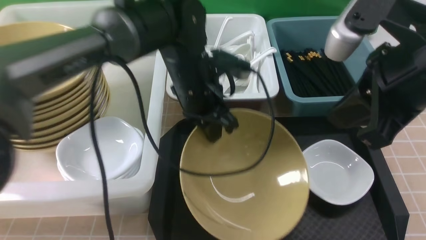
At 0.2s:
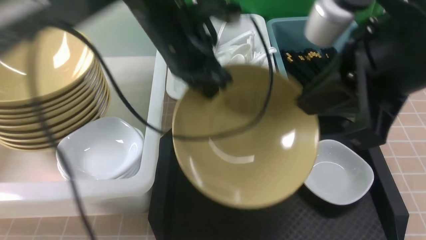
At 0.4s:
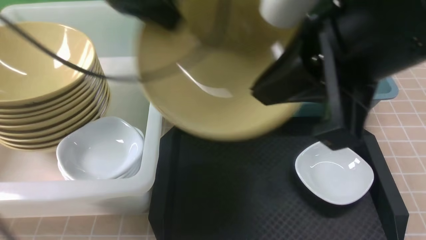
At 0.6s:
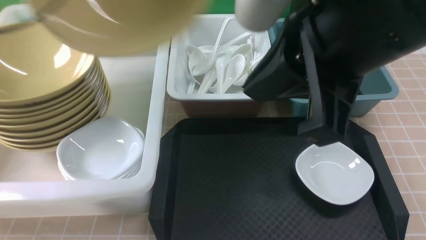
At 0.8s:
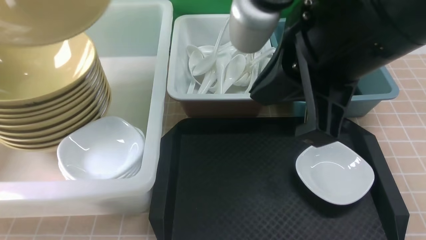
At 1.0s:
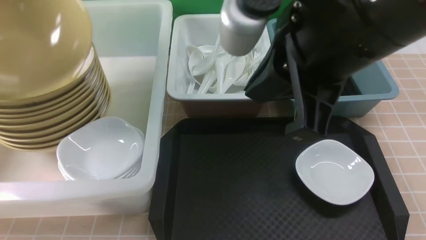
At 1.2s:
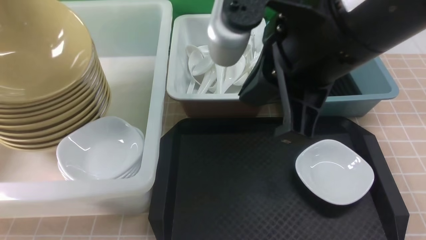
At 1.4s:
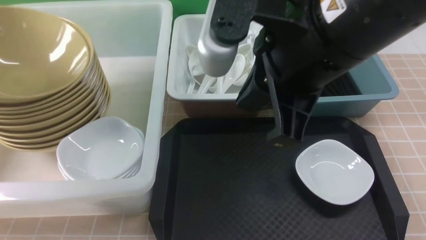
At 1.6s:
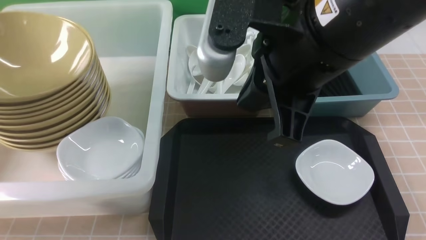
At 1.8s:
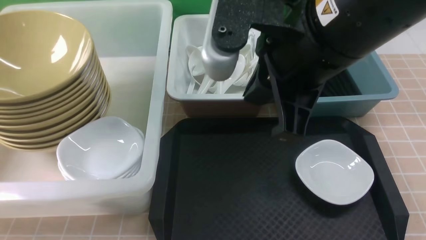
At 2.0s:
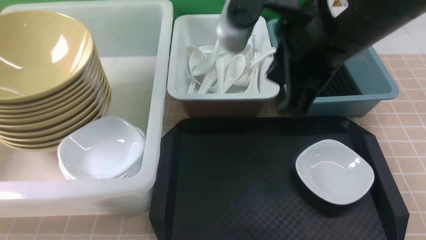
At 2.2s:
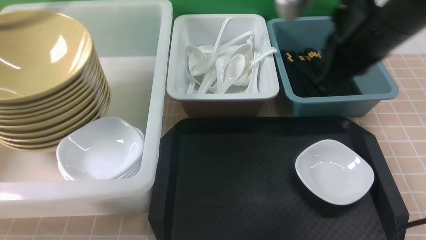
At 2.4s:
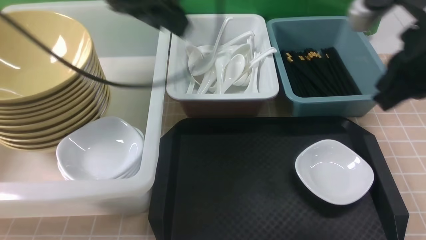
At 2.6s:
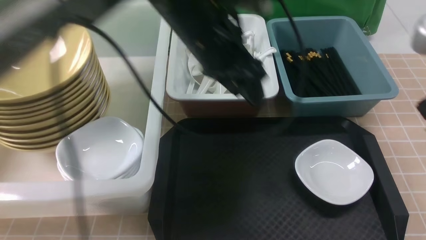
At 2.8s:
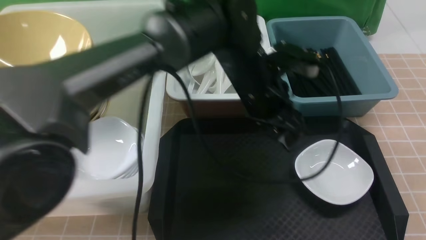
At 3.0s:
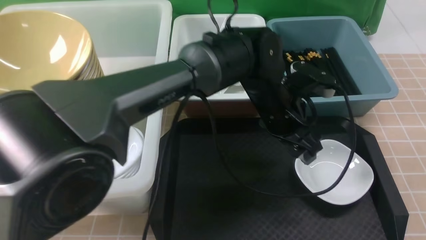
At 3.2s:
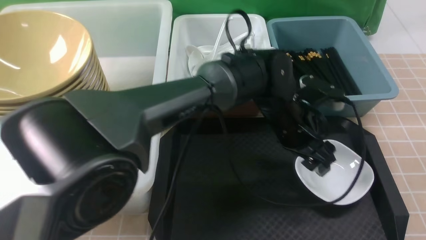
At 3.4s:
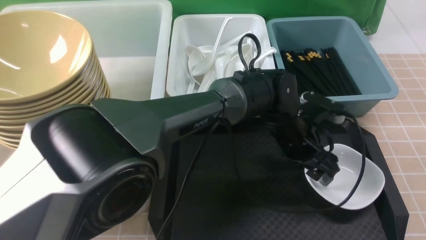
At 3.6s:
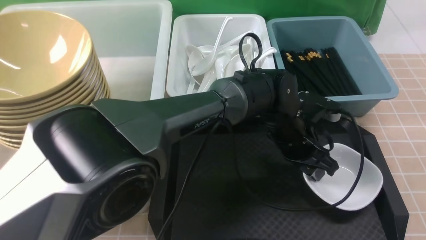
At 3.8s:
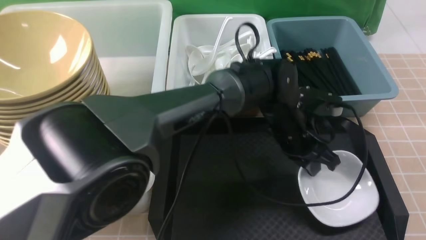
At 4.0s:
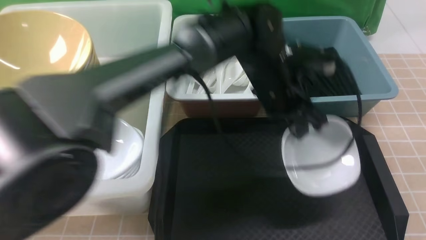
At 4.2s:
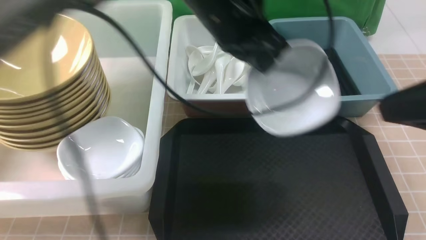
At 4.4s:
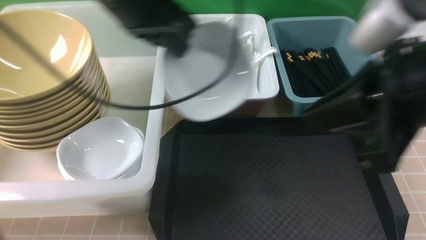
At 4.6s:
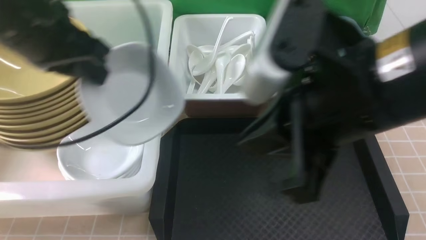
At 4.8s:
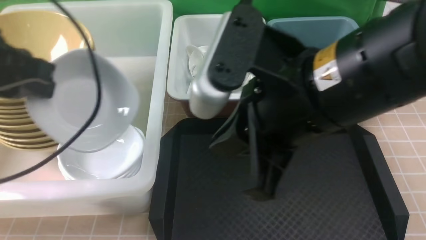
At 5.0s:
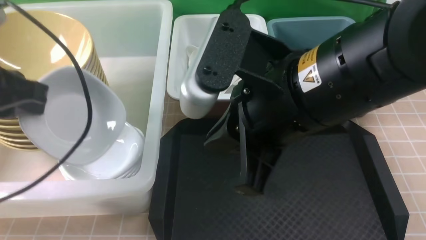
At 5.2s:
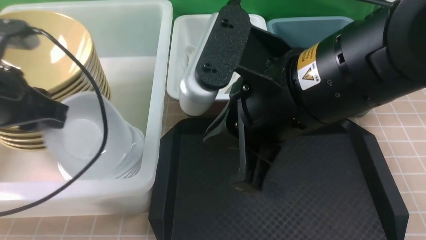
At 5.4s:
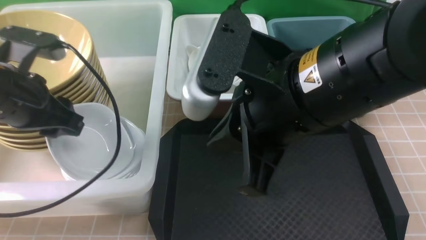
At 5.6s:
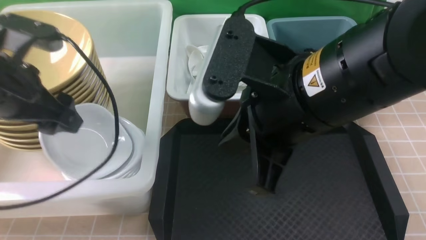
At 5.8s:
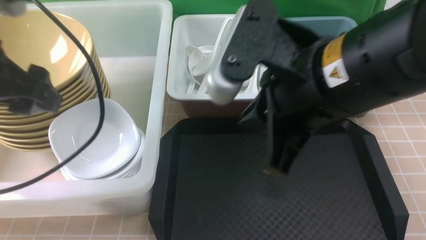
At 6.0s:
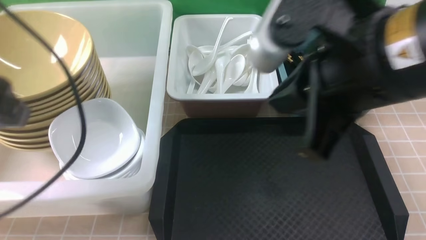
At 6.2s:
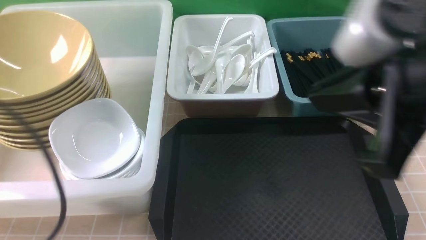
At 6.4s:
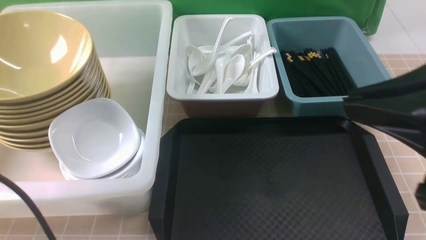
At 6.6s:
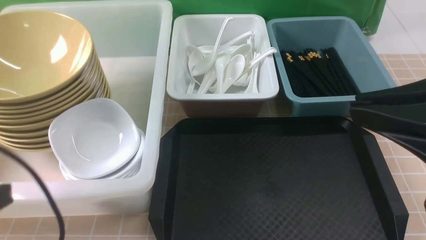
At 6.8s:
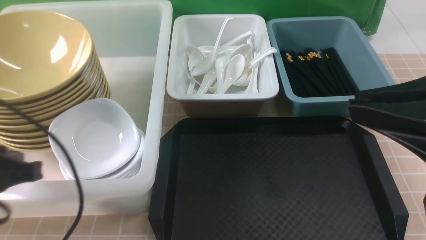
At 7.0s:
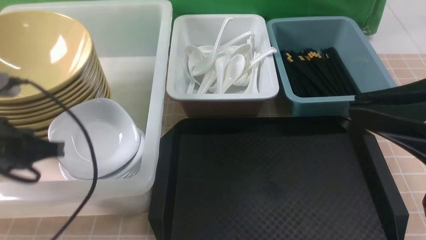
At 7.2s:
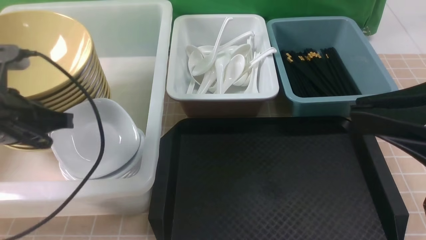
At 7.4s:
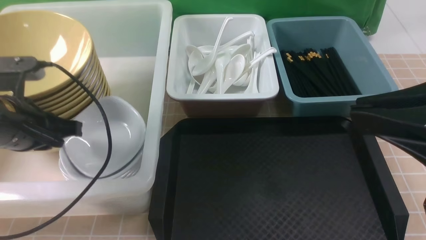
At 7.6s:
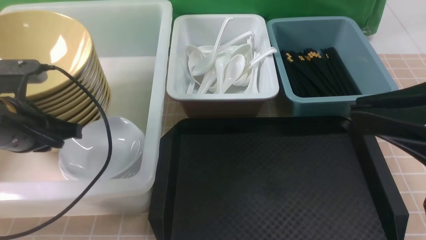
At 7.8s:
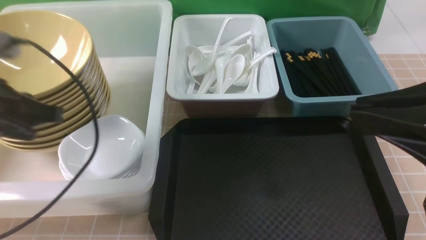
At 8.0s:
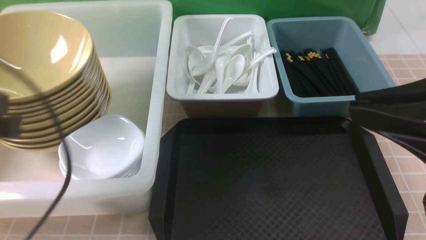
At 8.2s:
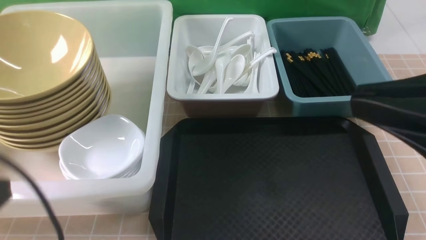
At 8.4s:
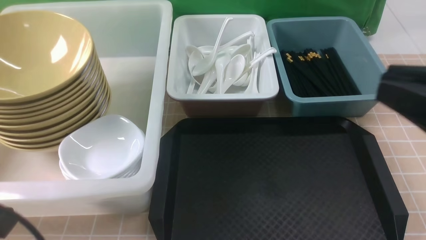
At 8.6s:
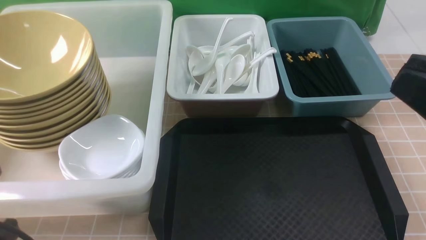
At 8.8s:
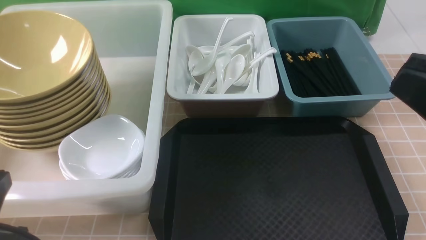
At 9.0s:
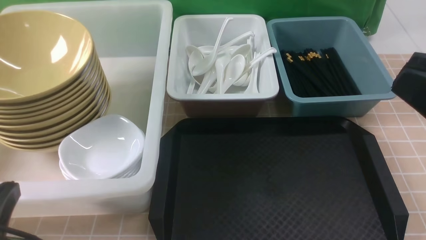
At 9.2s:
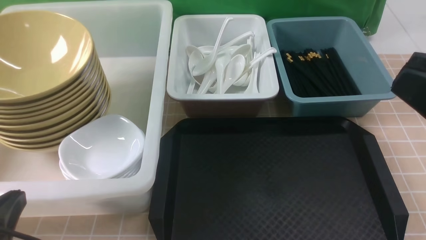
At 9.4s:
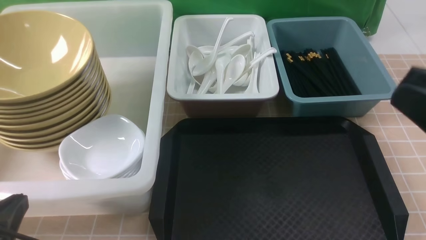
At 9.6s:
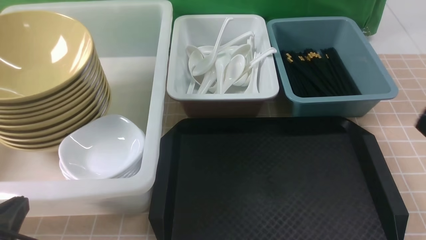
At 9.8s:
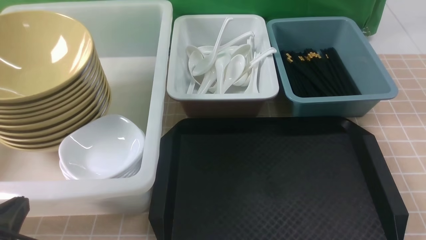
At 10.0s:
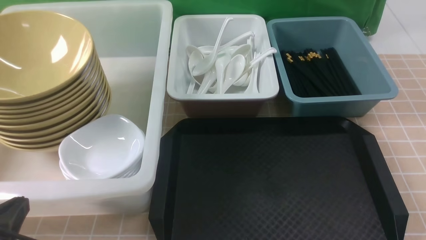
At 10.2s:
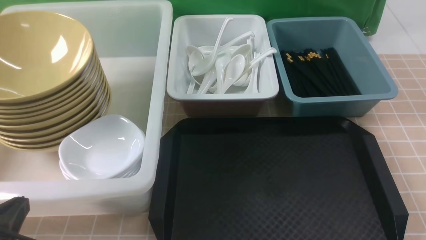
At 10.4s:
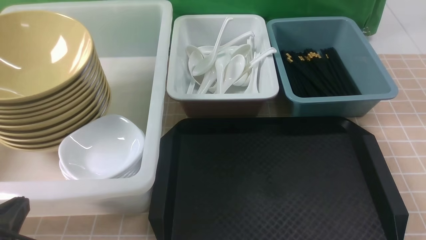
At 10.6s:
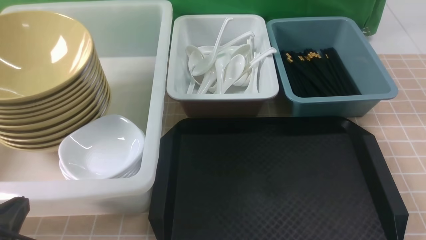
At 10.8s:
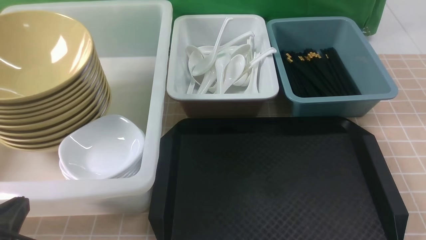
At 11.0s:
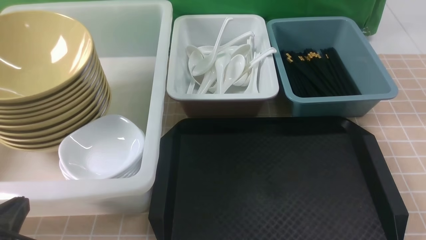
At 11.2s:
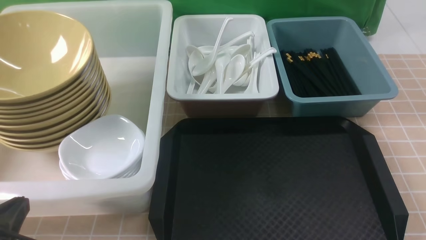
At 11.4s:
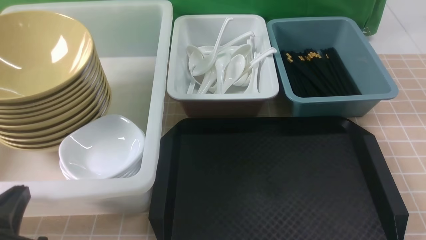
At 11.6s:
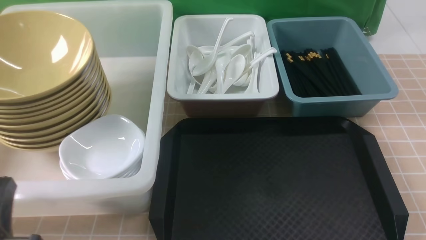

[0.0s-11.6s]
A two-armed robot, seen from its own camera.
Task of the whole recording: on brown table put chopsticks spoon bowls plates into blue grey white boxes.
Step, 0.0s to 1.8s: use the left arm to put the noodle bowl into the large storage box on the left.
Step, 2.0s to 3.8s: use the left arm to grab the plate.
Step, 4.0s to 5.8s: use the left arm to put the plate into the large storage box on the left.
0.0s to 1.4s: The left gripper shifts some 40 cm to the left. Meanwhile the right gripper heads to the left, covering roughly 10 cm.
1.4s to 2.8s: The left gripper shifts approximately 50 cm to the right, and opens. The right gripper goes roughly 20 cm to the right.
2.8s to 4.4s: The right gripper goes approximately 10 cm to the left. The left gripper is displaced to the left and upward by about 20 cm, and closes.
4.4s to 5.8s: The right gripper shifts some 5 cm to the left, while the left gripper moves to the left and backward, approximately 15 cm, and opens.
5.8s to 7.2s: The right gripper travels to the right and backward by some 15 cm. The left gripper heads downward, covering some 10 cm, reaches some 10 cm backward, then returns, and closes.
7.2s to 8.8s: The left gripper is displaced backward by roughly 15 cm.
8.8s to 10.2s: The right gripper shifts approximately 25 cm downward and to the right.
10.2s to 11.6s: The grippers make only small movements.

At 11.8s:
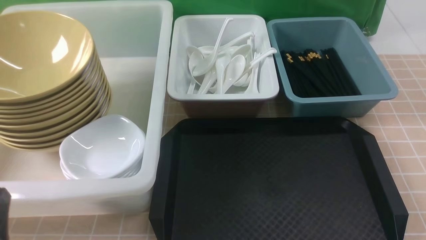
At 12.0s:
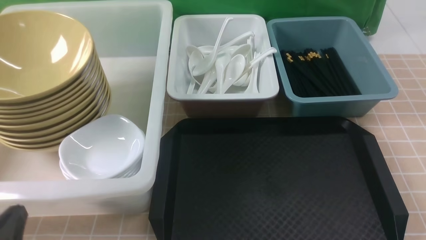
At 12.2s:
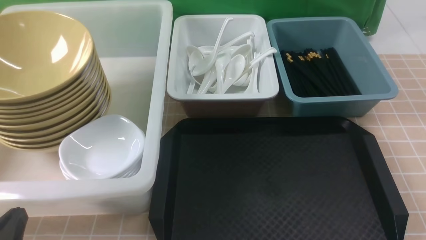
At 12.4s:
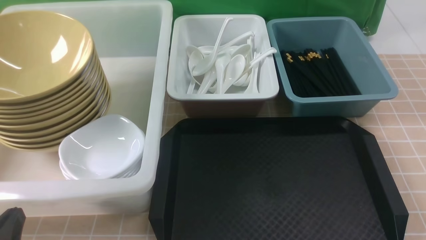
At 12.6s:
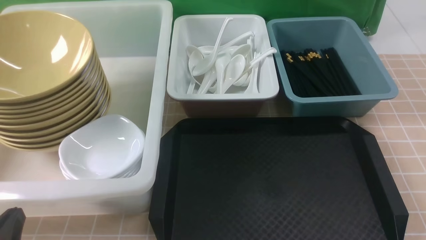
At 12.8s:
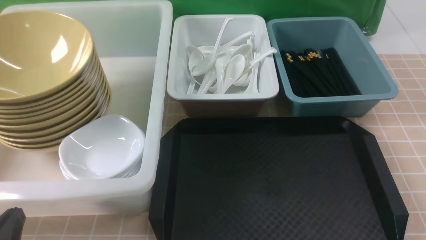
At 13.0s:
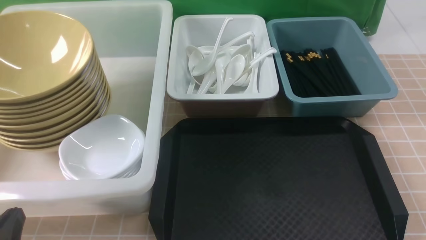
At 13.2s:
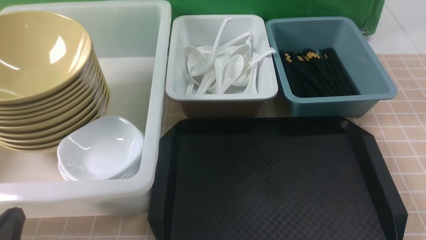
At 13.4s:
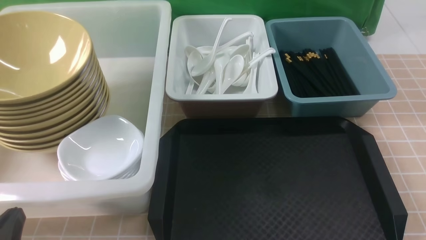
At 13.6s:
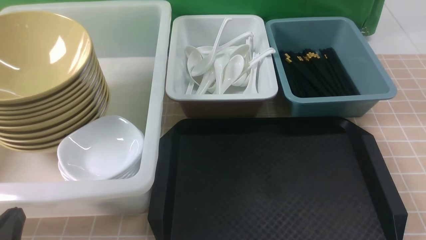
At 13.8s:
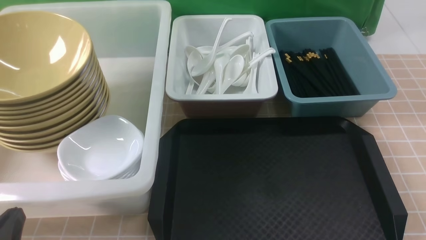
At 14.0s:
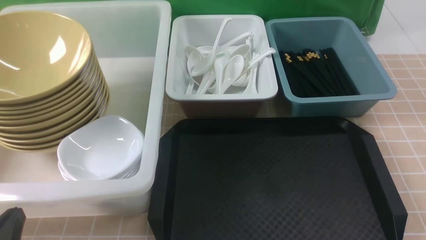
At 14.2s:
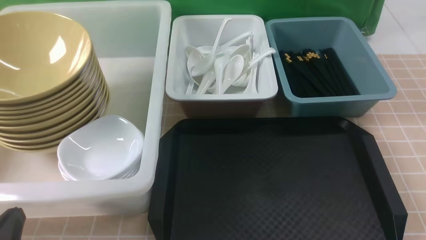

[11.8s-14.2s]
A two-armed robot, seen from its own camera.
Task of the whole recording: on brown table put chopsticks spoon bowls plates into blue grey white boxes.
13.0s to 14.2s: The two grippers keep their place.
